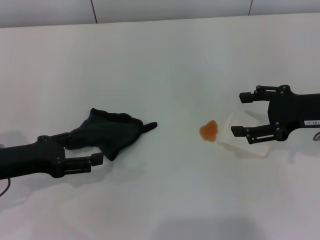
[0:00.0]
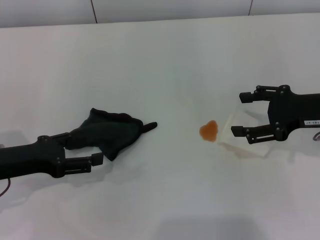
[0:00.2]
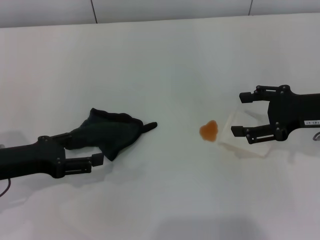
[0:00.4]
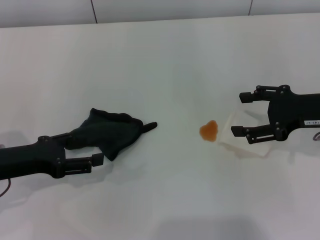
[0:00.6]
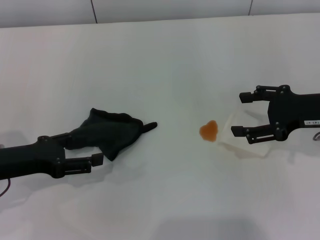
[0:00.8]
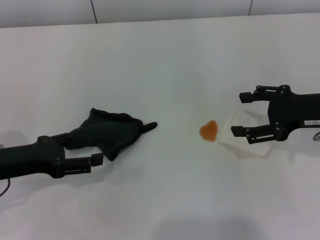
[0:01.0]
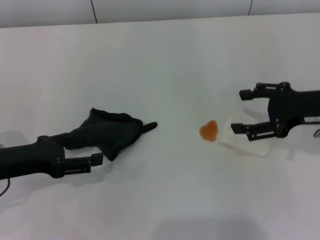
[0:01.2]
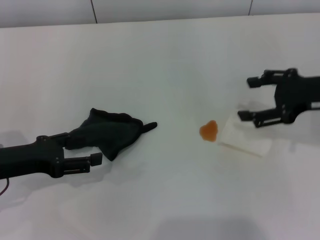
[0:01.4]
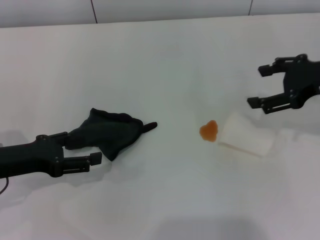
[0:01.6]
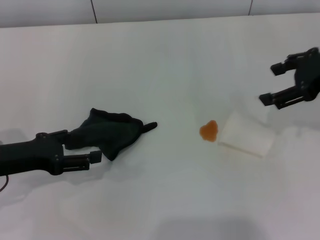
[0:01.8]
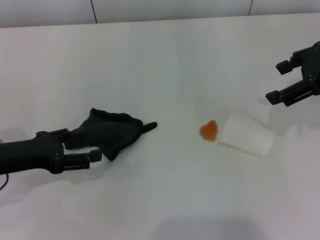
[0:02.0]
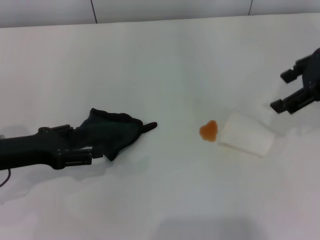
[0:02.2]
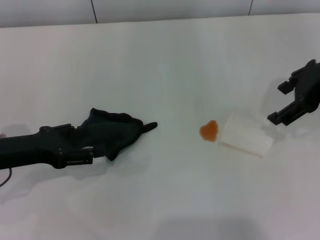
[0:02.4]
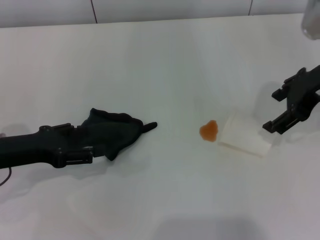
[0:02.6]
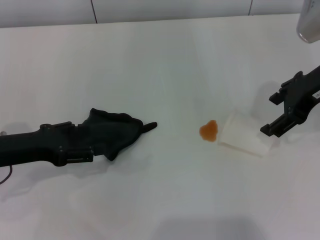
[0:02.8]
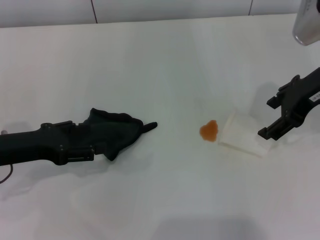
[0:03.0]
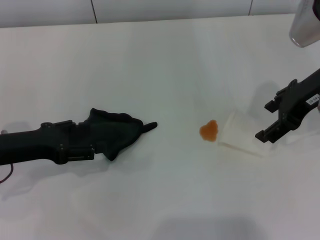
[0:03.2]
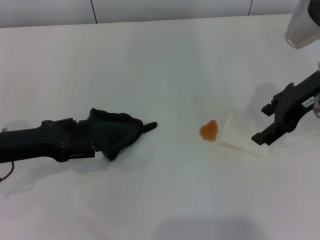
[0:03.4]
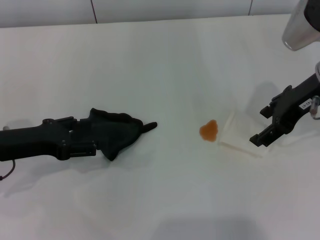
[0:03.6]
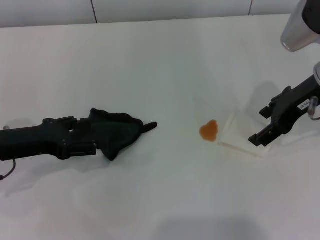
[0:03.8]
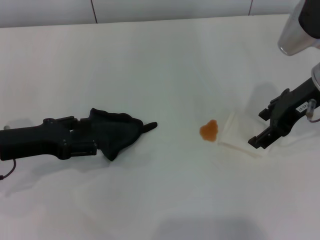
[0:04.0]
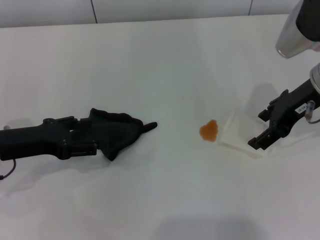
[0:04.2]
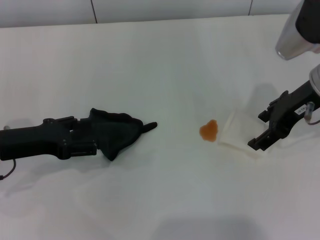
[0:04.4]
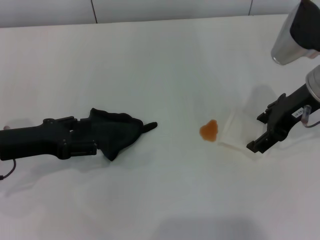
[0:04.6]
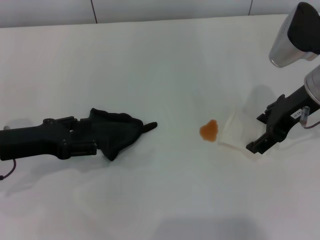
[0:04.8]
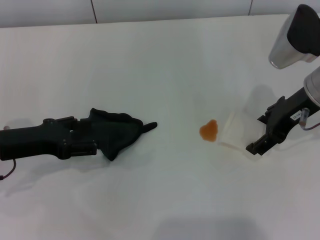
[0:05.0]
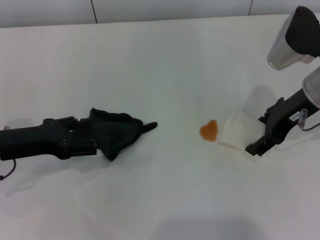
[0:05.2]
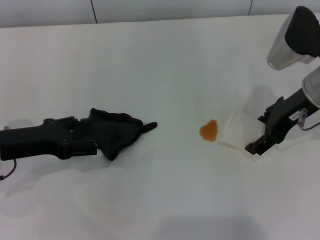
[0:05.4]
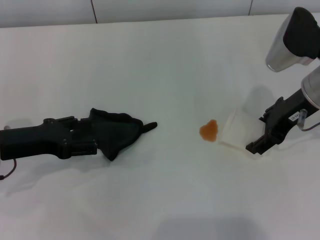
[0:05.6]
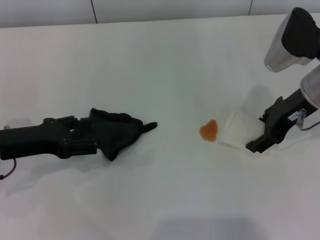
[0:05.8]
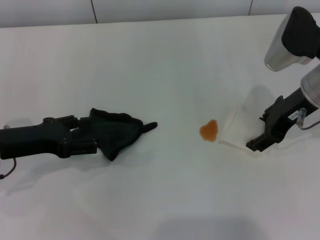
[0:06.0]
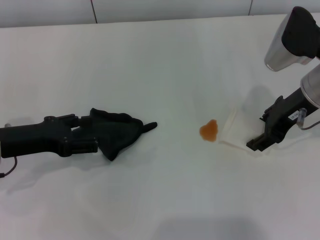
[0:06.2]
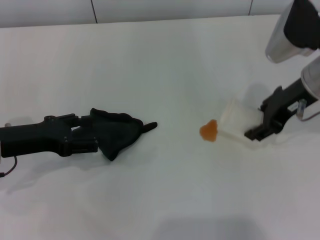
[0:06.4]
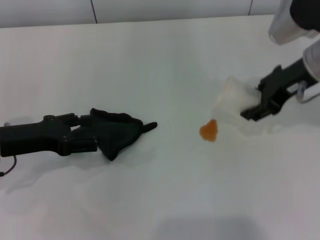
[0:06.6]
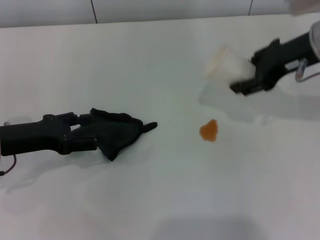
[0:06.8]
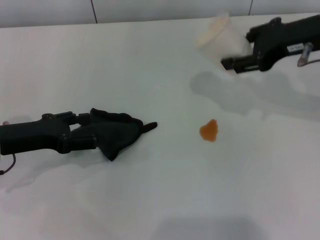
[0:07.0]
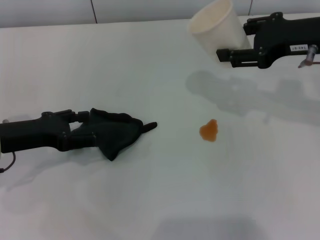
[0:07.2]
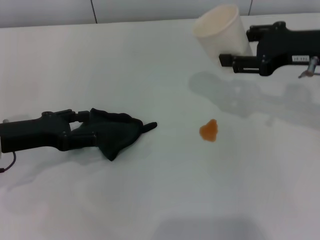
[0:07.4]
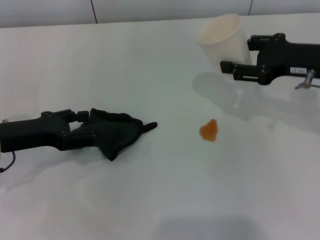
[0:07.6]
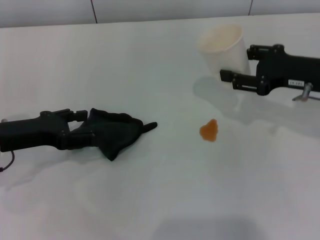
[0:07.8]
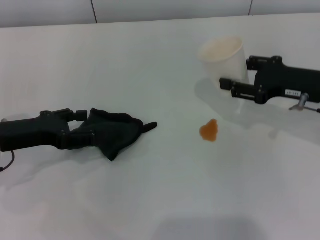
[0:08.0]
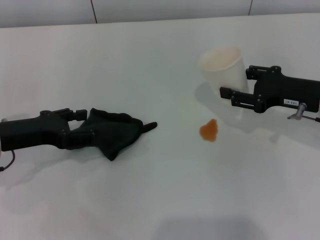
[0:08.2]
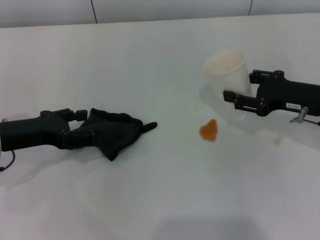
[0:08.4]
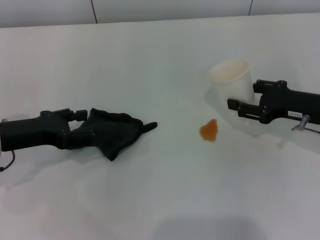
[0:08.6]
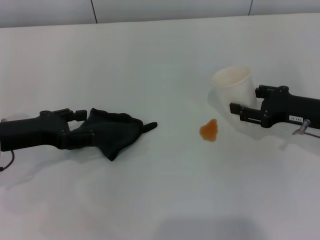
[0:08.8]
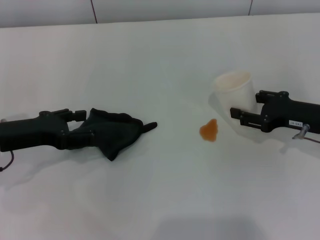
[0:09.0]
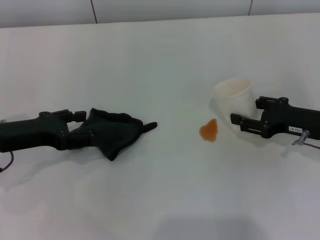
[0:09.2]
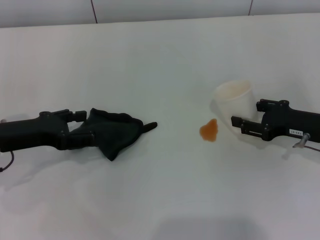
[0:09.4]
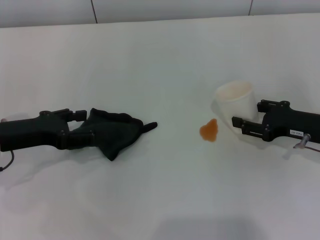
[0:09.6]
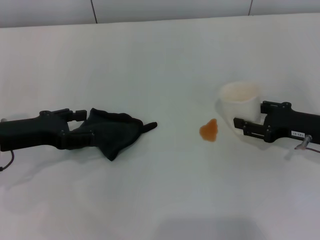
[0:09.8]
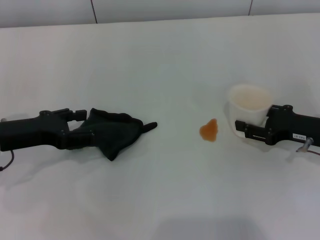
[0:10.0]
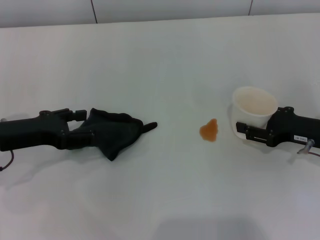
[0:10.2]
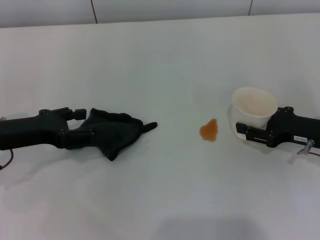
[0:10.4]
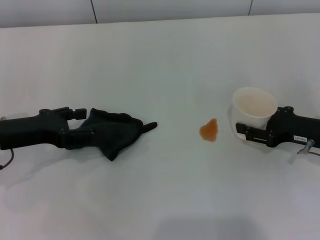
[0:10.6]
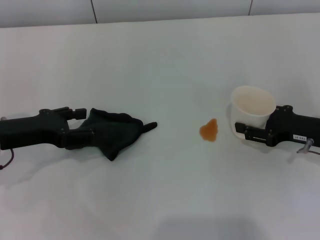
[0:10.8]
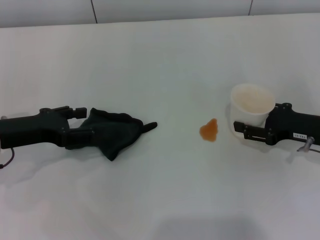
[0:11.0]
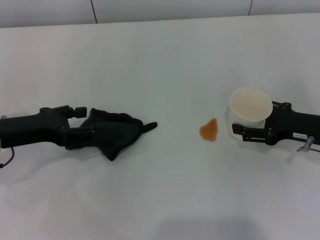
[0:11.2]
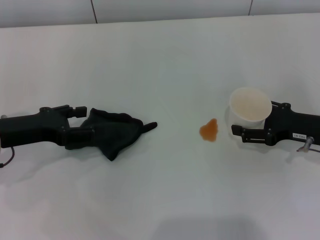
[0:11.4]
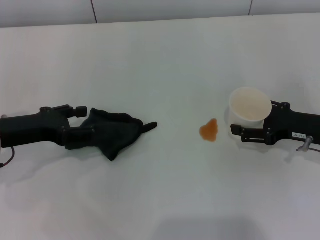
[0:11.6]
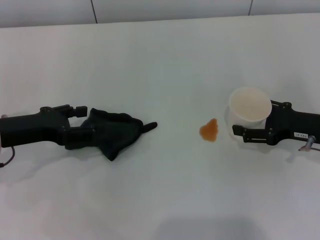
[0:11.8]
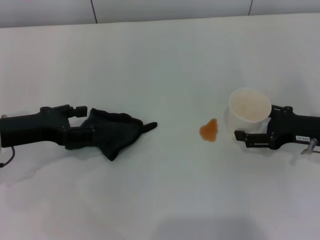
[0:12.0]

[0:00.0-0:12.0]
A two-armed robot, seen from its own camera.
Step, 0:00.0 to 0:06.0: Grasp the paper cup with the right gripper.
0:00.0 to 0:01.6: The right gripper travels upward by about 5 cm.
0:01.6 to 0:03.0: The right gripper is displaced to the left by roughly 5 cm.
0:03.0 to 0:04.4: There are only small adjustments of the grippers.
0:04.4 to 0:06.0: The right gripper closes up.
0:06.0 to 0:07.6: The right gripper closes.
0:07.6 to 0:09.0: The right gripper heads downward, covering about 10 cm.
0:09.0 to 0:10.4: There are only small adjustments of the grippers.
0:10.4 to 0:12.0: The right gripper opens.

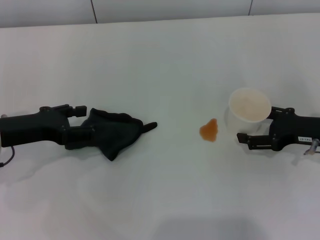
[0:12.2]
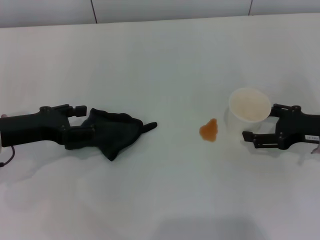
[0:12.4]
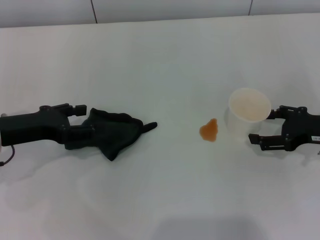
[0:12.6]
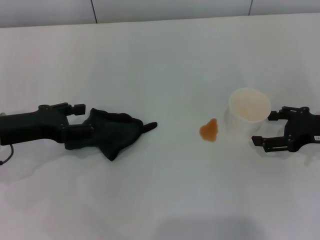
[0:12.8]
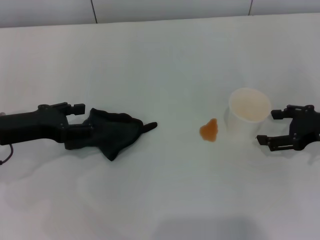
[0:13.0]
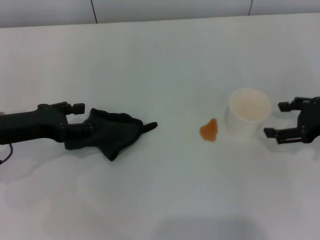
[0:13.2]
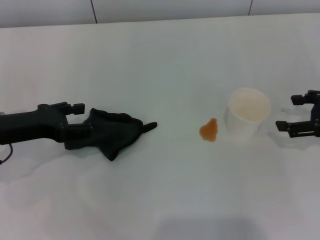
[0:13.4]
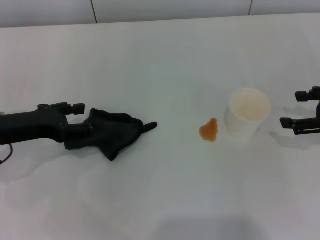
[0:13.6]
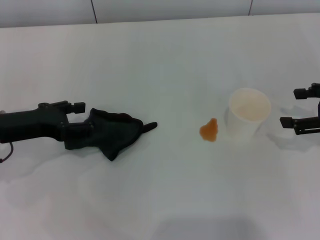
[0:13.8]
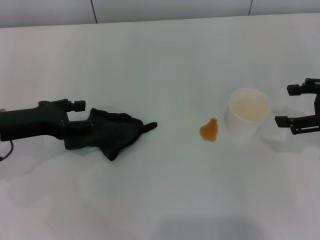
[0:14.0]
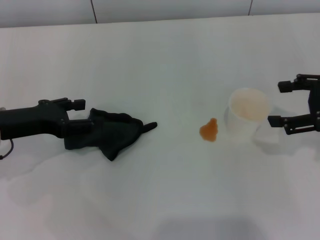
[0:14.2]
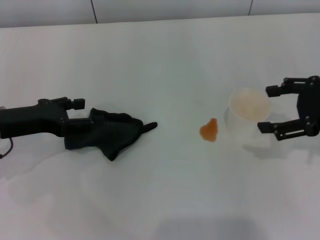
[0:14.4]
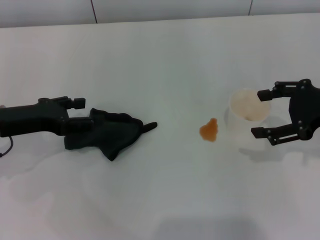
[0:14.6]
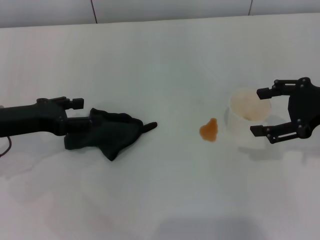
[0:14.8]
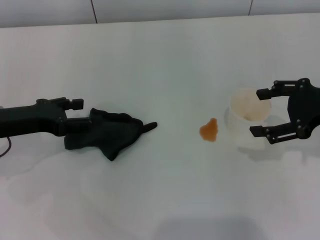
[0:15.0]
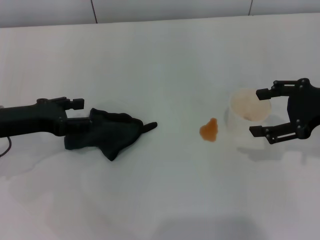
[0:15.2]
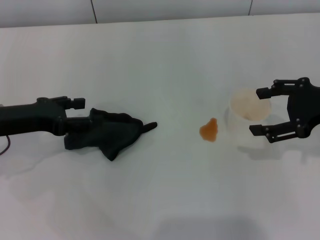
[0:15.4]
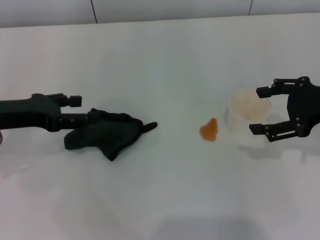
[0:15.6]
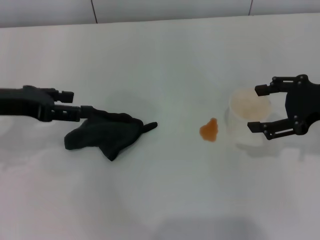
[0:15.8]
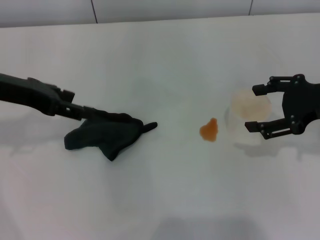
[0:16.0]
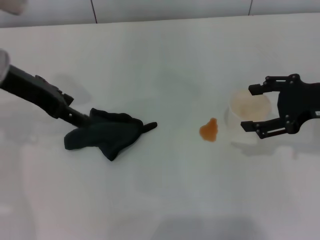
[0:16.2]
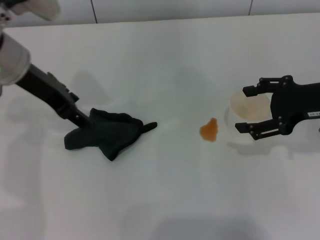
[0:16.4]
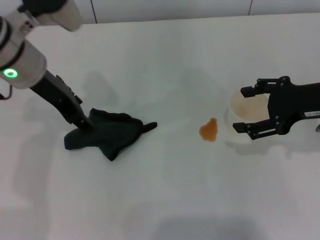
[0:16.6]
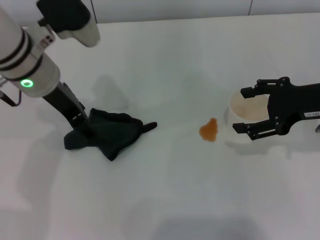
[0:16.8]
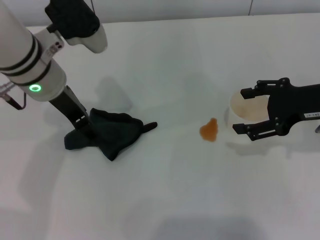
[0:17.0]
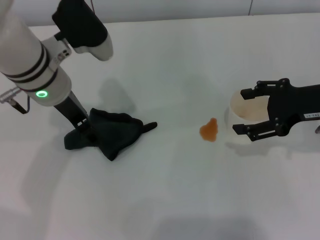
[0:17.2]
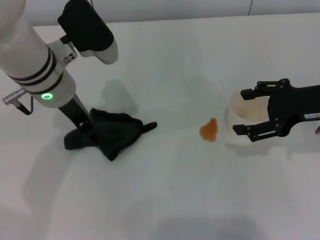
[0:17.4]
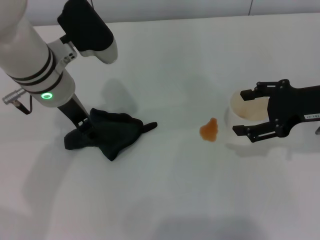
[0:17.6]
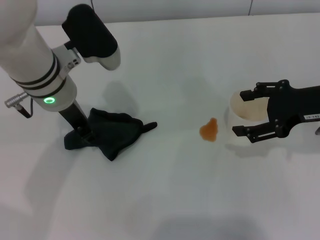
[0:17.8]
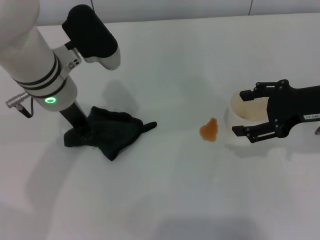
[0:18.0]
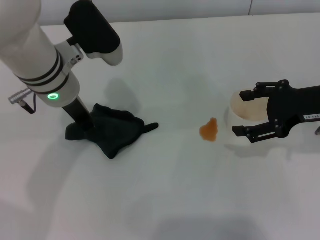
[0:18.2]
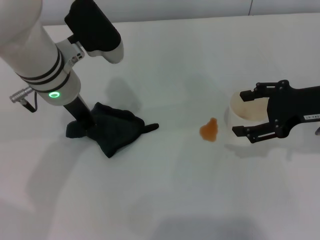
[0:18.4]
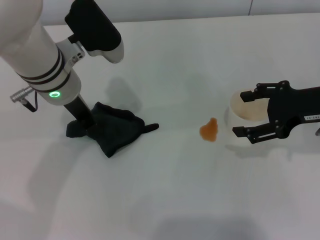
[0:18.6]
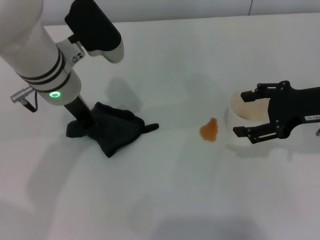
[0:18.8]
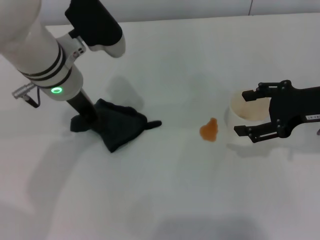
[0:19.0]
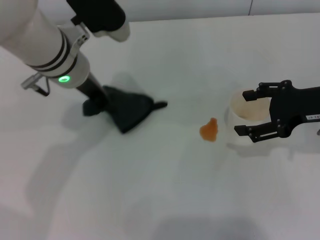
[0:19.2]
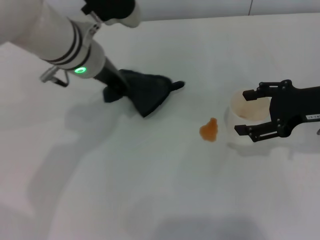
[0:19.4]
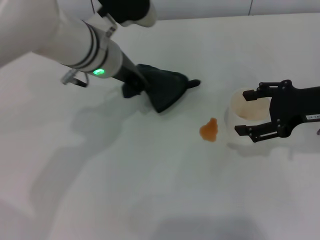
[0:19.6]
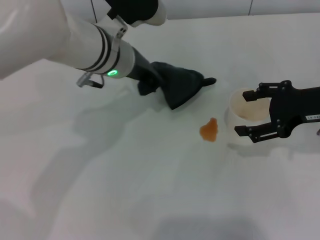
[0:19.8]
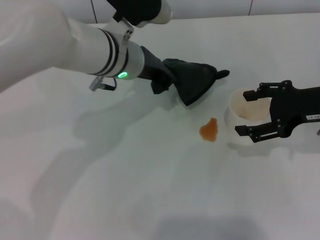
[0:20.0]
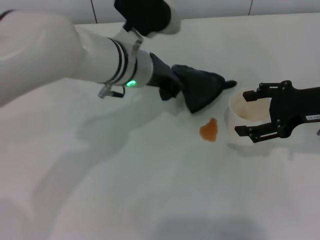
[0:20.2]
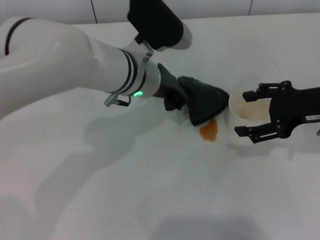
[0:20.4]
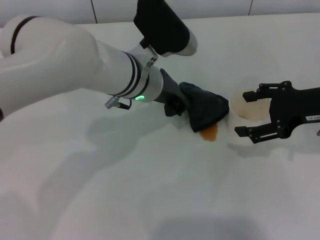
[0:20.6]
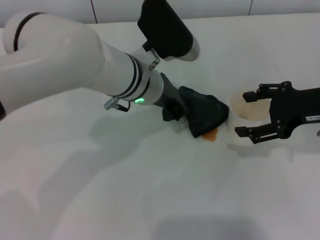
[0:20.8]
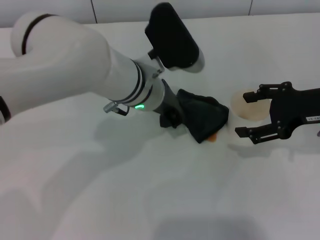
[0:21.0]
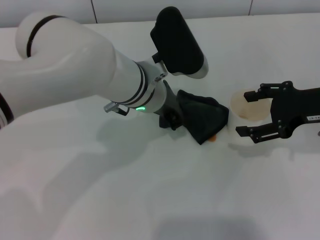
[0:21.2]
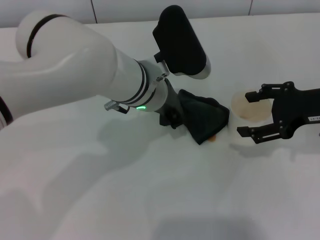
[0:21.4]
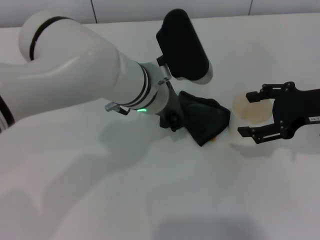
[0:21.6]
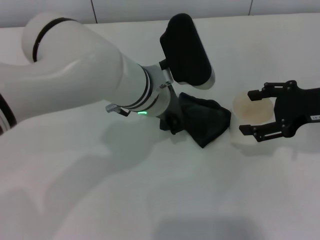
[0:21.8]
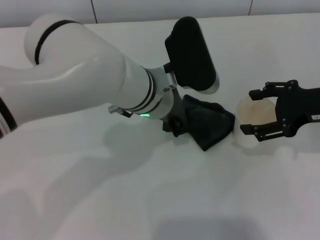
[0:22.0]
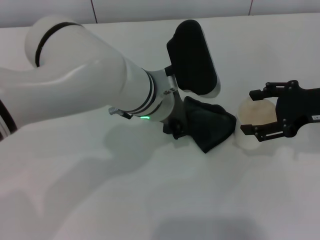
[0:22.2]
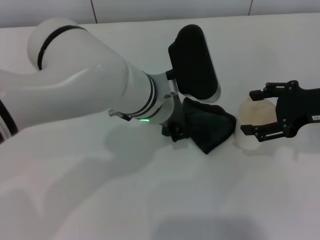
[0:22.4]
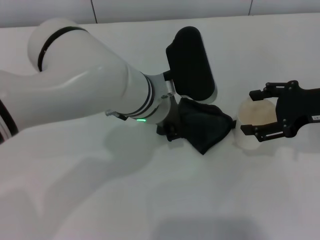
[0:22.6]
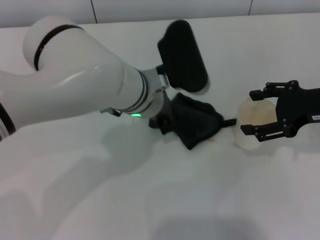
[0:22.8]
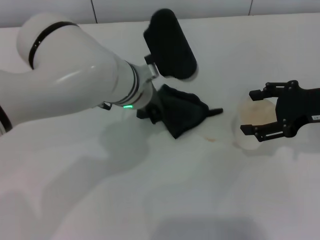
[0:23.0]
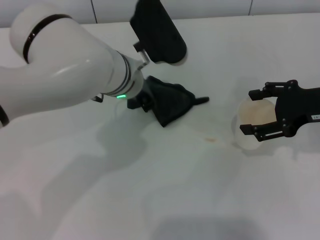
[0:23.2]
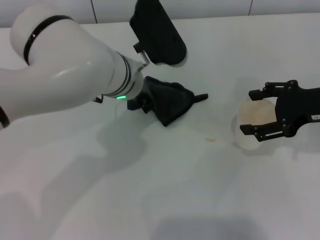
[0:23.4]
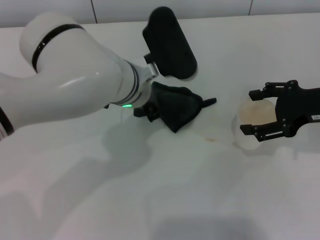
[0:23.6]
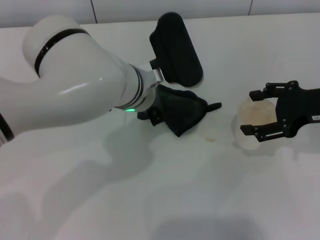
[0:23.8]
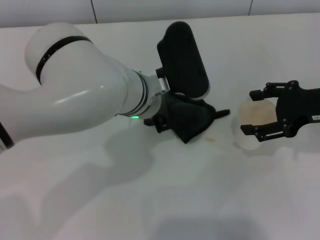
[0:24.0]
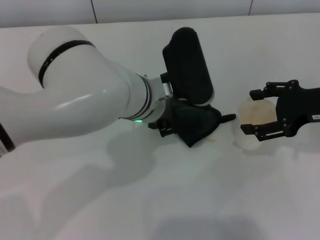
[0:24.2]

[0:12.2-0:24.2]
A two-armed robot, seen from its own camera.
Step, 0:13.2 to 0:18.8: Grasp the rag with the left gripper.
0:12.2 to 0:13.8: The right gripper moves upward, approximately 10 cm.
0:13.8 to 0:15.2: The right gripper changes place by about 5 cm.
0:15.2 to 0:16.6: The left gripper shifts roughly 15 cm to the right, upward and forward.
0:16.6 to 0:18.2: The left gripper shifts by some 5 cm, and closes up.
0:18.2 to 0:19.8: The left gripper moves to the right, some 5 cm.
0:19.8 to 0:21.2: The left gripper shifts by about 5 cm.
0:21.2 to 0:24.2: There are only small adjustments of the grippers.
